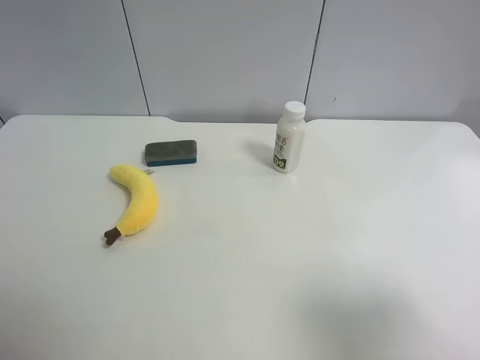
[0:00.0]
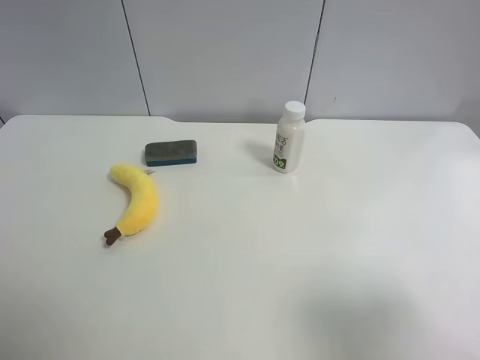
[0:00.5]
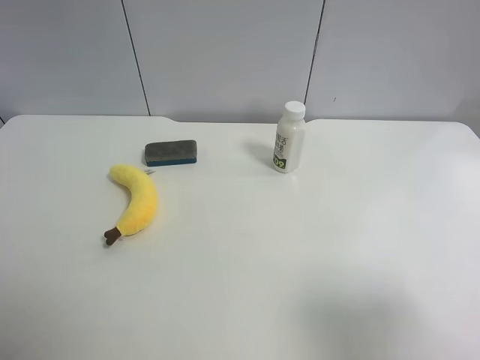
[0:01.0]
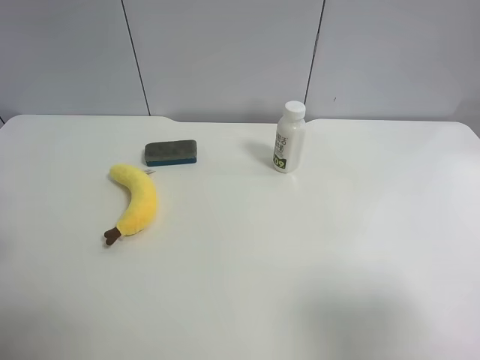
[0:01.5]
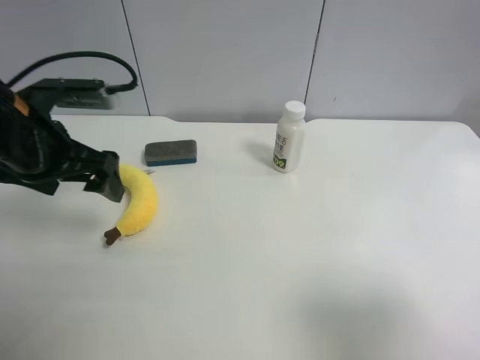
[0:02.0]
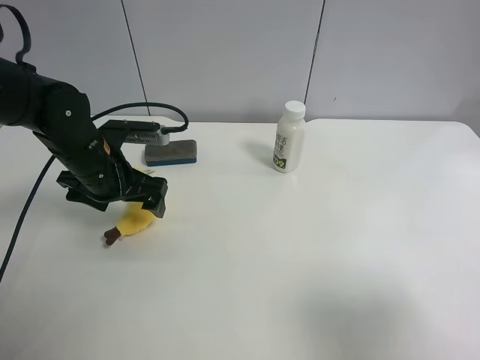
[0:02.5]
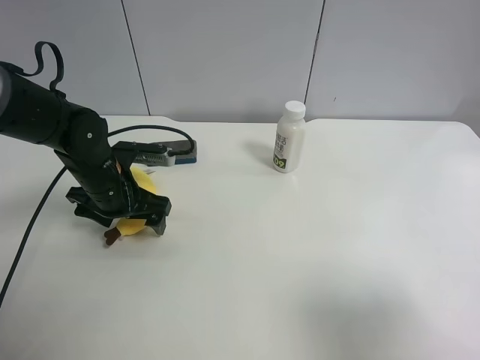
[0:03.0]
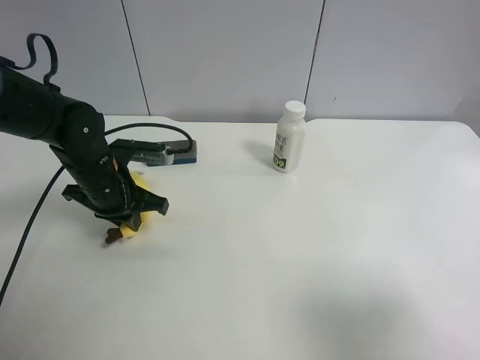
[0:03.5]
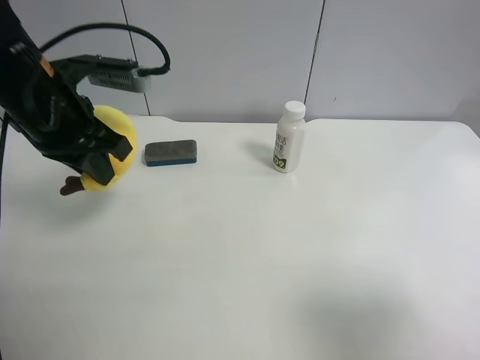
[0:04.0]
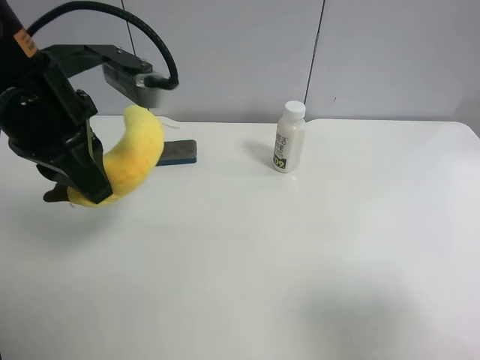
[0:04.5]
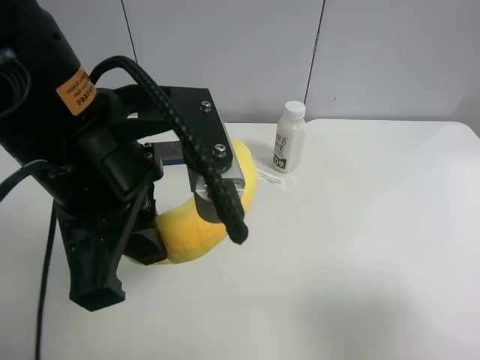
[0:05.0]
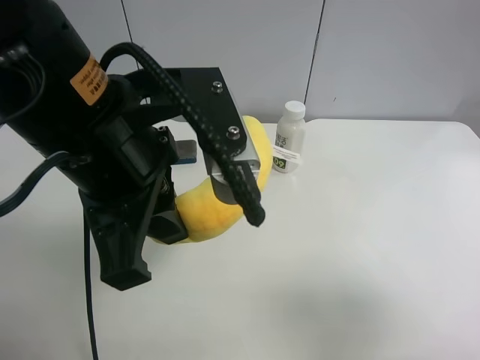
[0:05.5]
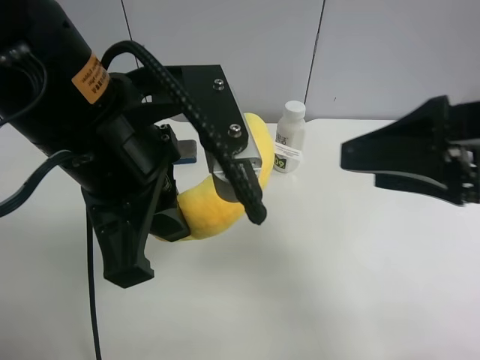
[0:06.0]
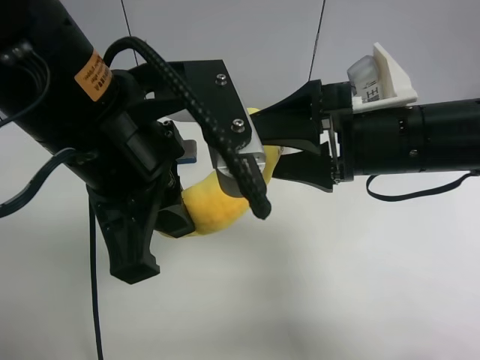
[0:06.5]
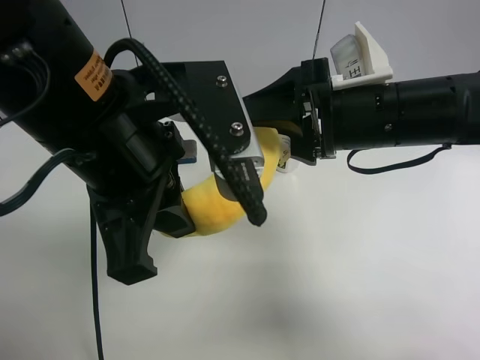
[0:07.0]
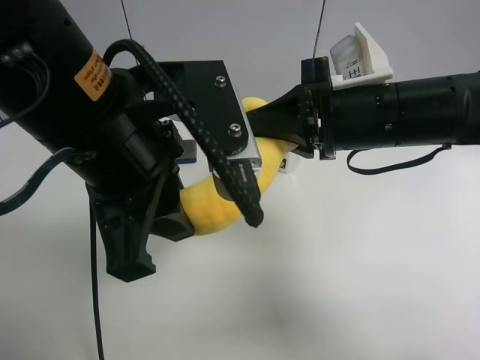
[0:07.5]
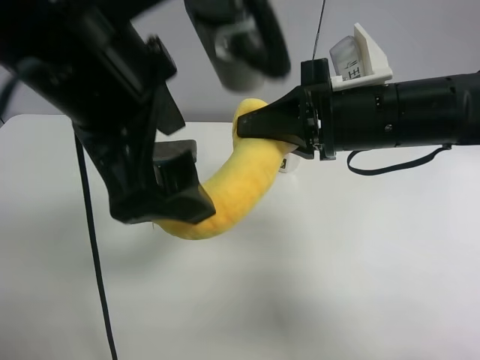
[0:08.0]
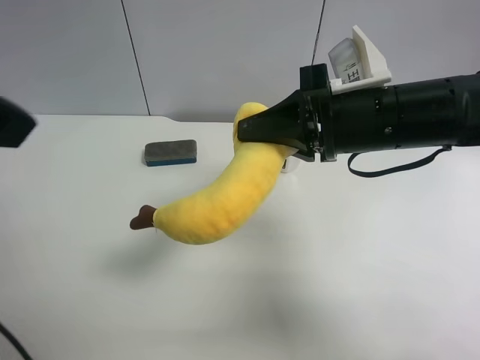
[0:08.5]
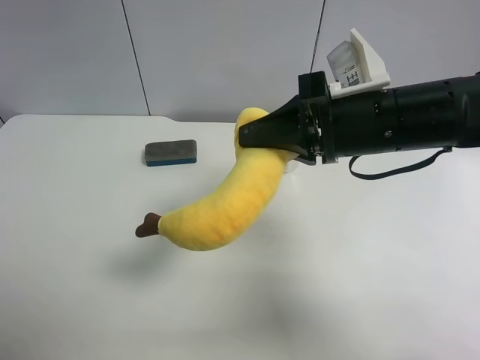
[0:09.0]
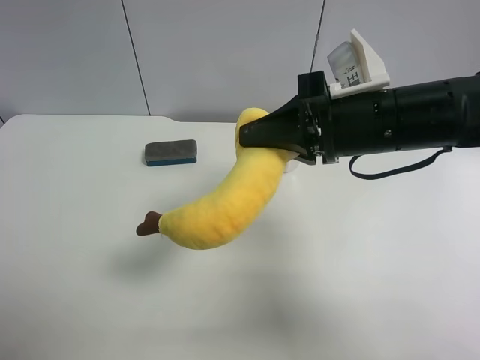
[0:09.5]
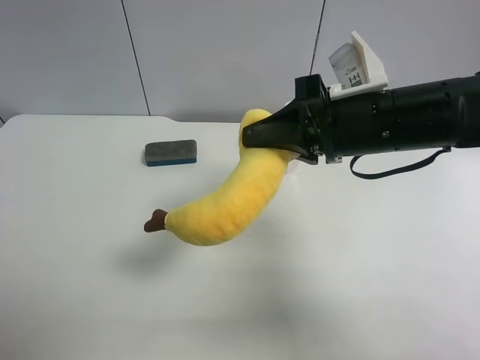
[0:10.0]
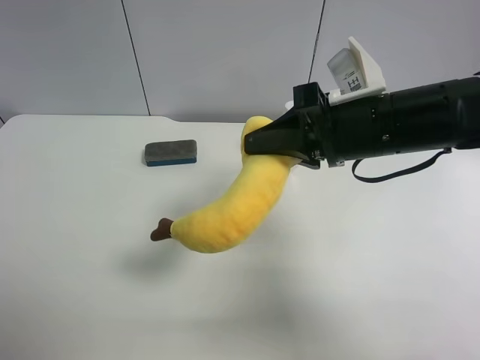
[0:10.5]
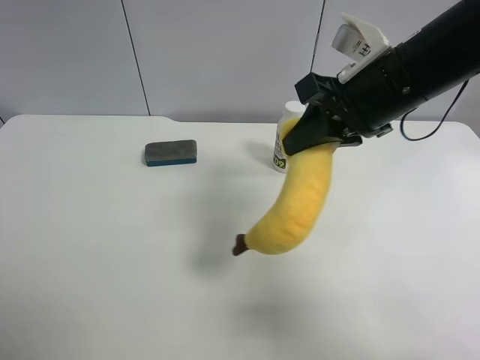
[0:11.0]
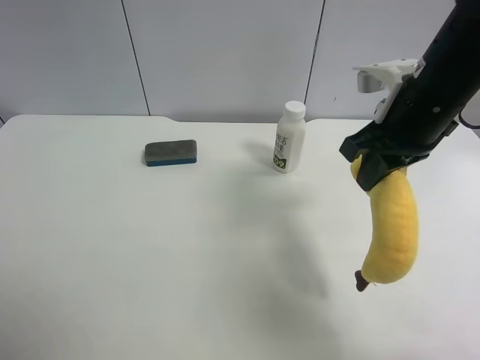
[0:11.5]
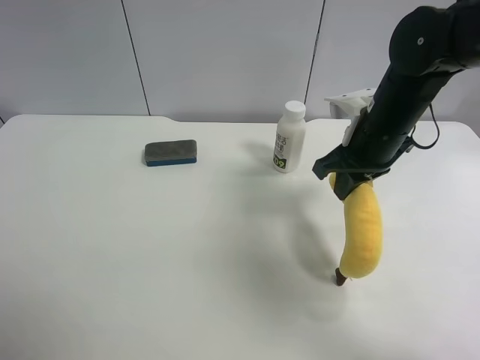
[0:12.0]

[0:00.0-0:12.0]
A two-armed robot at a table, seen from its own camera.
Task of the whole recording: use the left gripper to pick up the item and transfer it from the left gripper to the right gripper.
0:00.0 to 0:02.0: The left gripper shifts some 25 cm forward.
0:02.0 to 0:04.0: The left gripper goes downward and returns, about 10 cm each way, and closes its fingers.
0:04.0 to 0:06.0: The right gripper travels forward and to the left by roughly 15 cm. The left gripper heads backward and to the right, covering about 15 cm.
0:06.0 to 0:08.0: The right gripper is displaced forward and to the left by roughly 10 cm, and closes. The left gripper opens its fingers.
0:08.0 to 0:10.0: The left gripper moves to the left and backward, some 30 cm.
0:10.0 to 0:12.0: The right gripper is displaced forward by about 5 cm.

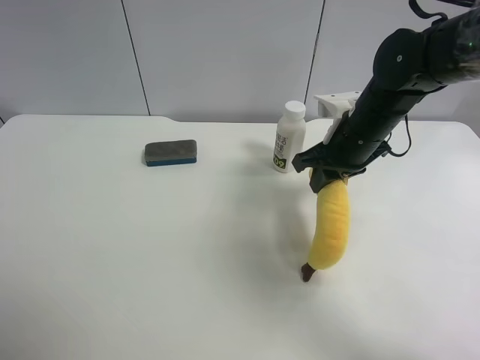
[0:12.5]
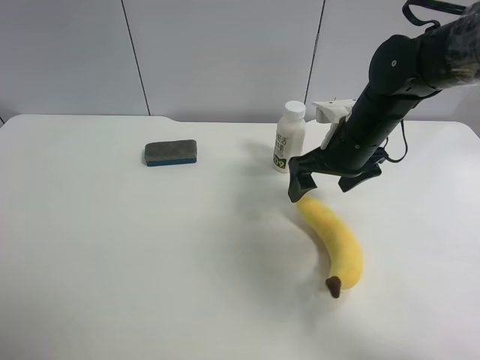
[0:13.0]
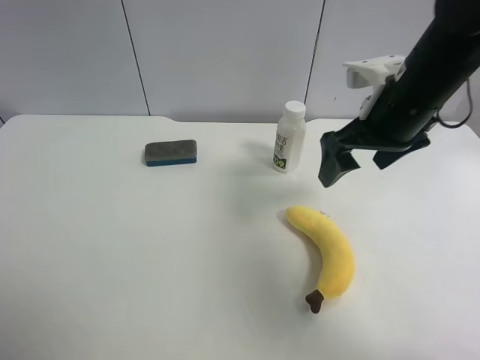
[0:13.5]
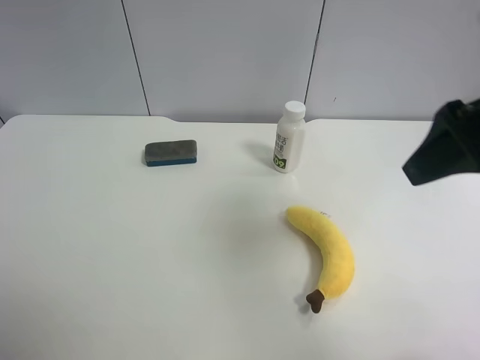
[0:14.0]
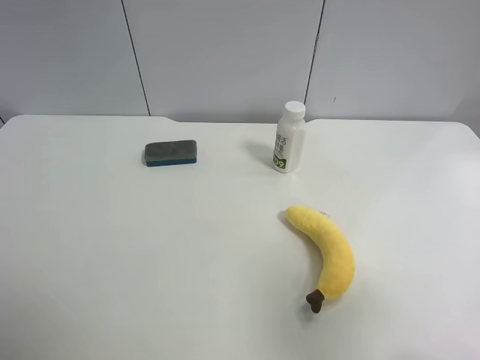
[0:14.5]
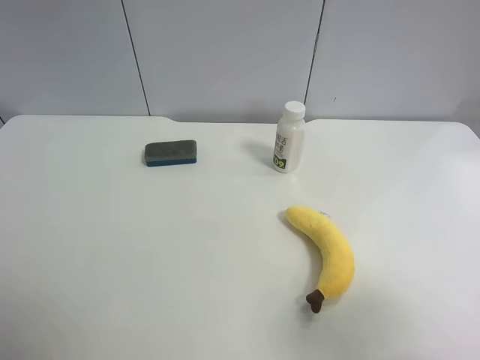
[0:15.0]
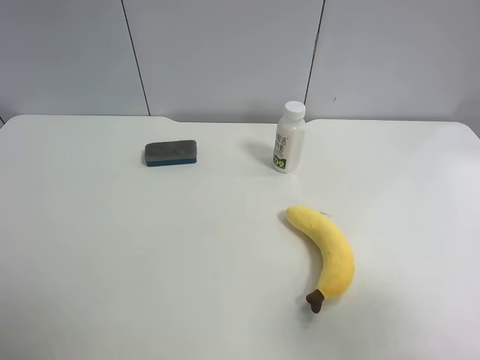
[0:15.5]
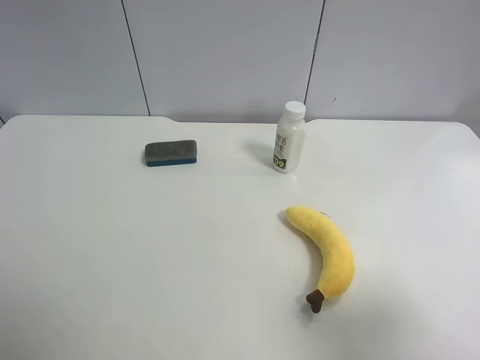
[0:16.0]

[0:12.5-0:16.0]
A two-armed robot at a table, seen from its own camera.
Task of the whole recording: use the left gripper to pick up the item and transfer it from the left gripper to the right gripper.
0:12.5 to 0:14.5: The right gripper heads backward, covering approximately 30 cm, and opens its fingers.
